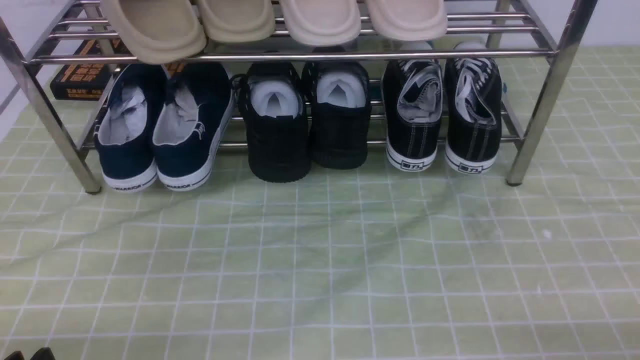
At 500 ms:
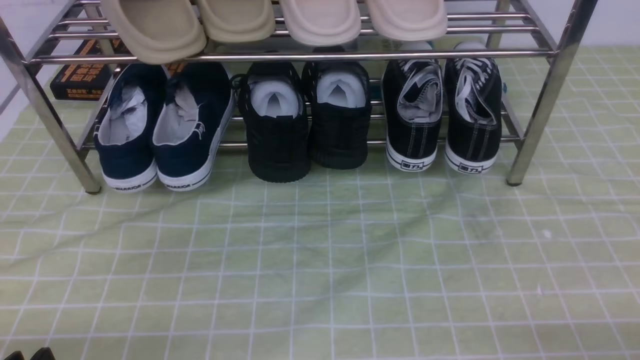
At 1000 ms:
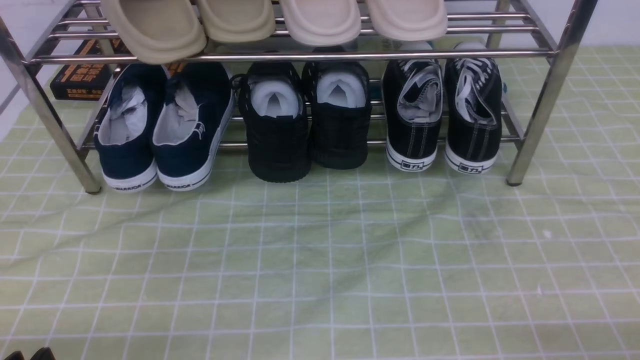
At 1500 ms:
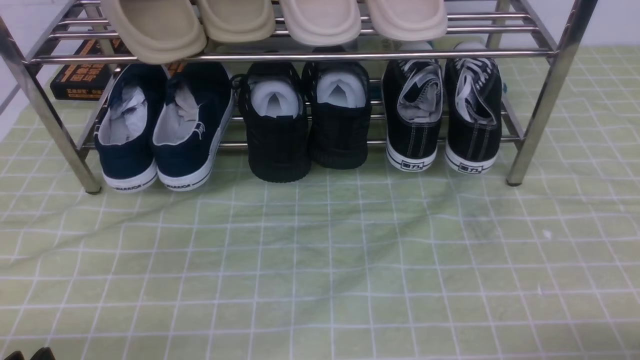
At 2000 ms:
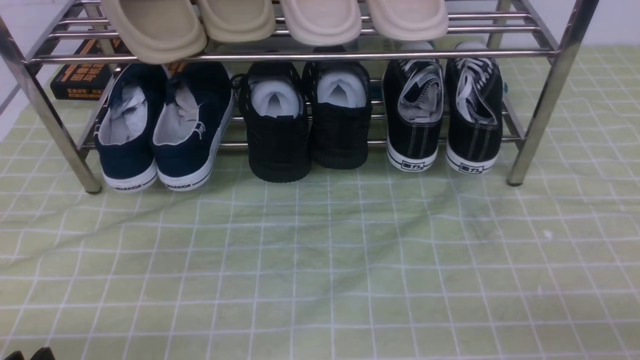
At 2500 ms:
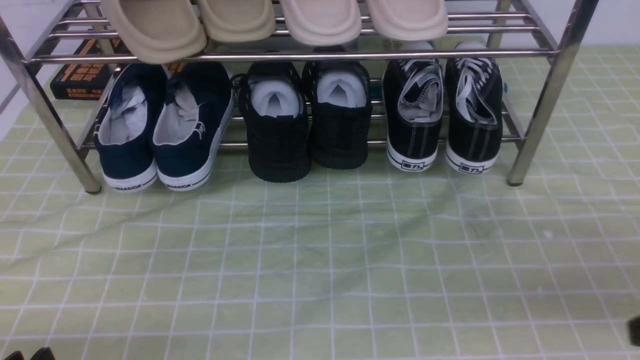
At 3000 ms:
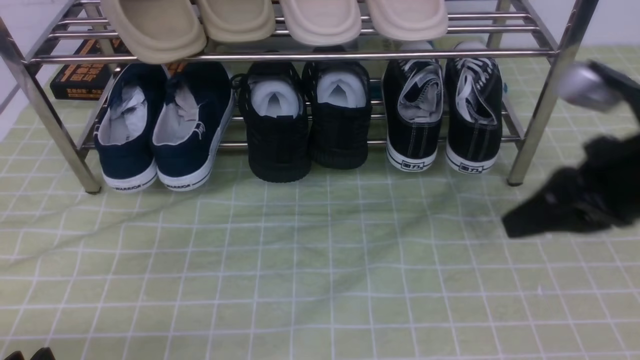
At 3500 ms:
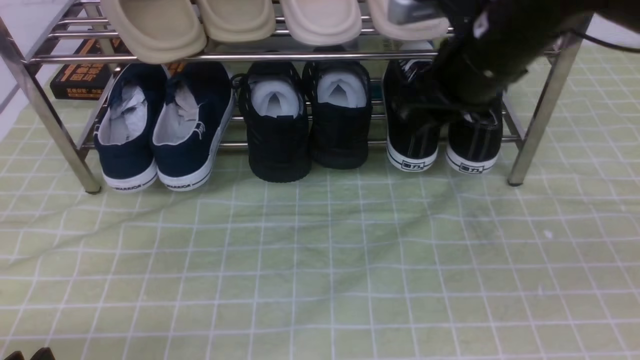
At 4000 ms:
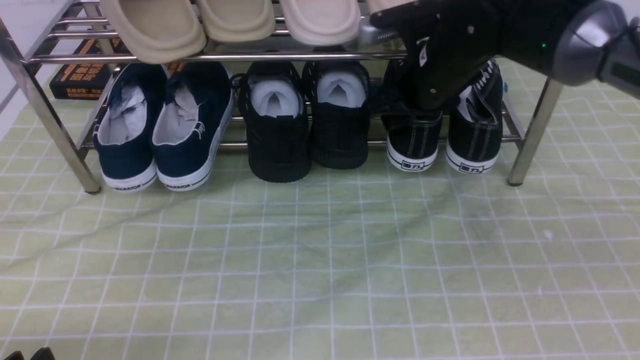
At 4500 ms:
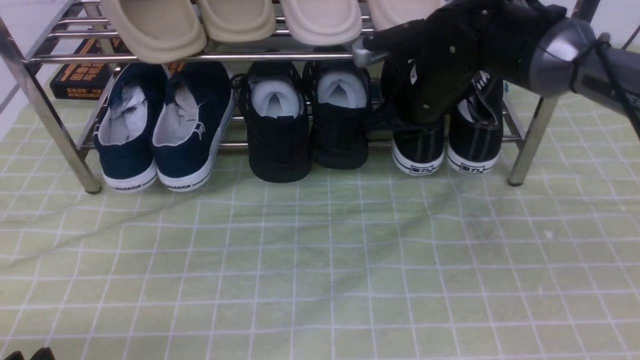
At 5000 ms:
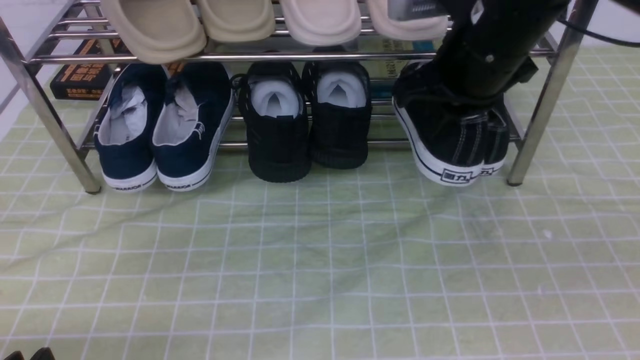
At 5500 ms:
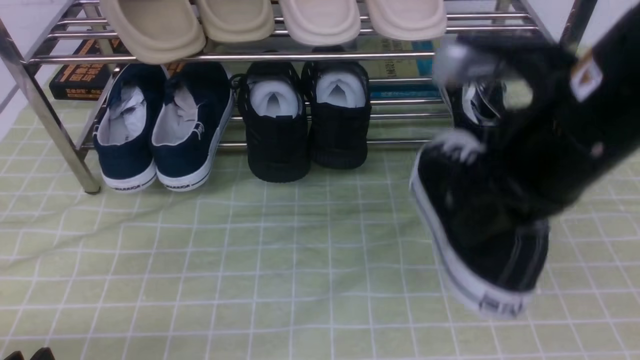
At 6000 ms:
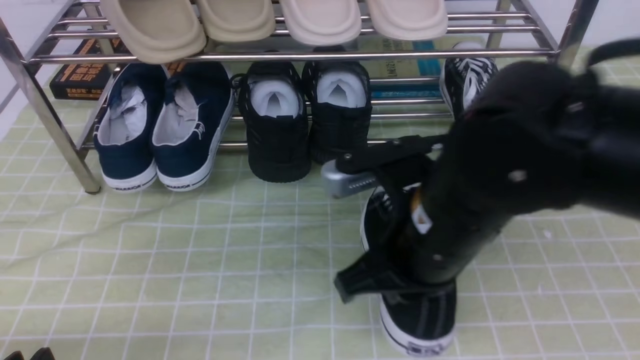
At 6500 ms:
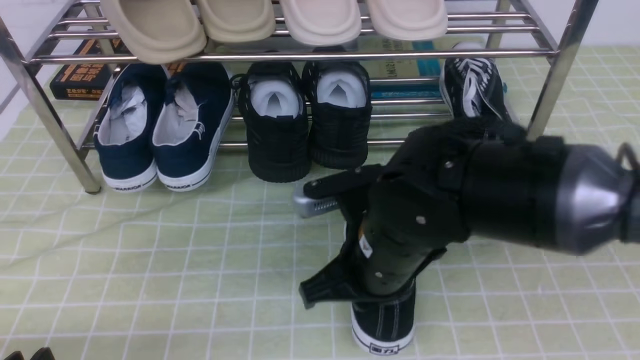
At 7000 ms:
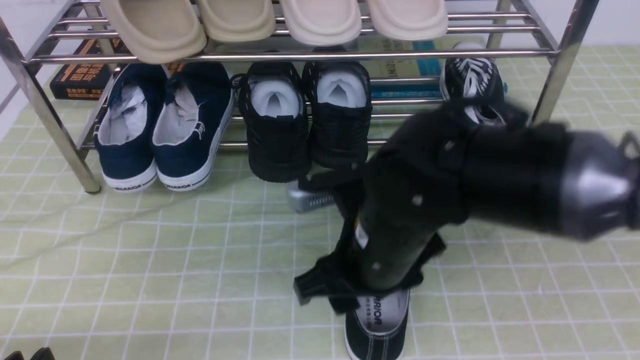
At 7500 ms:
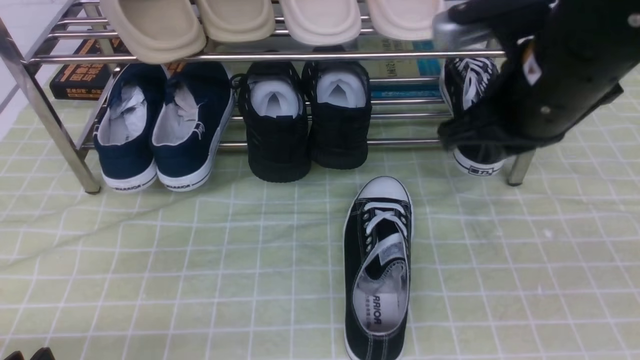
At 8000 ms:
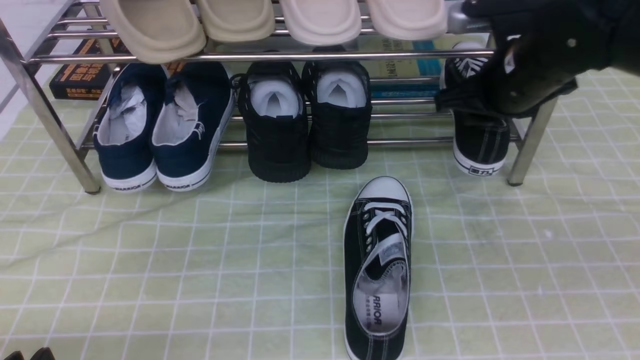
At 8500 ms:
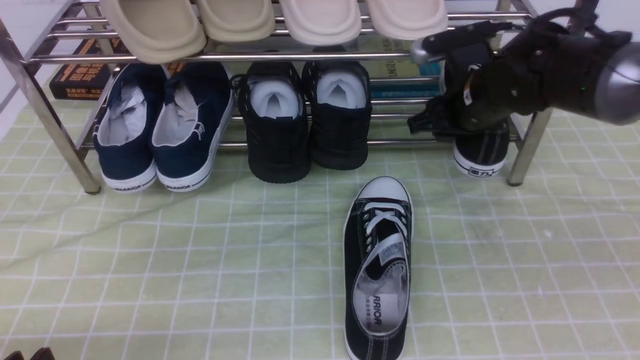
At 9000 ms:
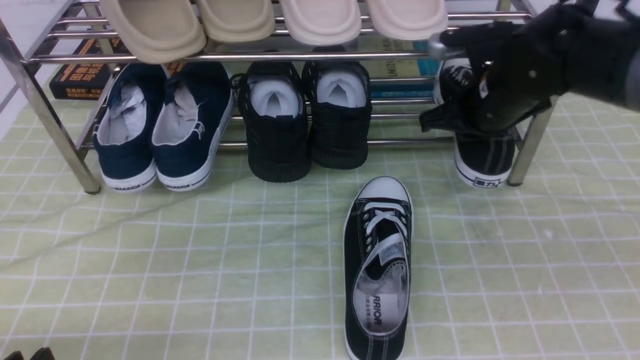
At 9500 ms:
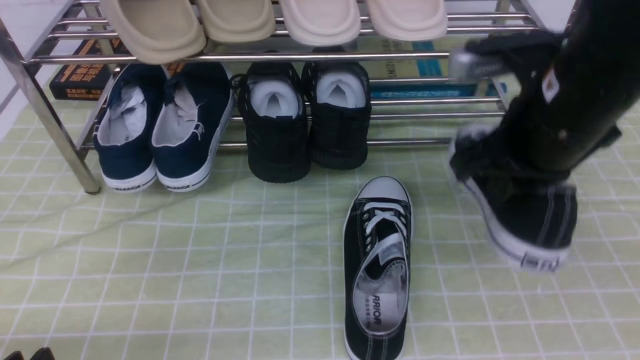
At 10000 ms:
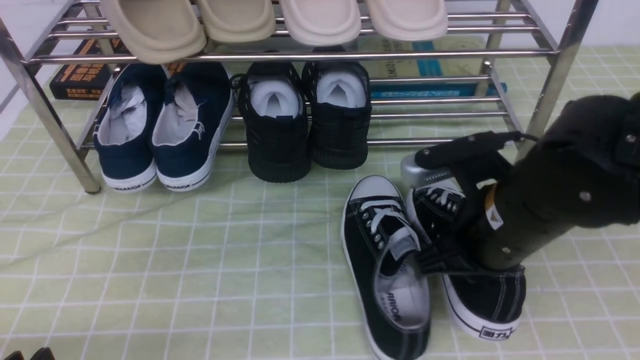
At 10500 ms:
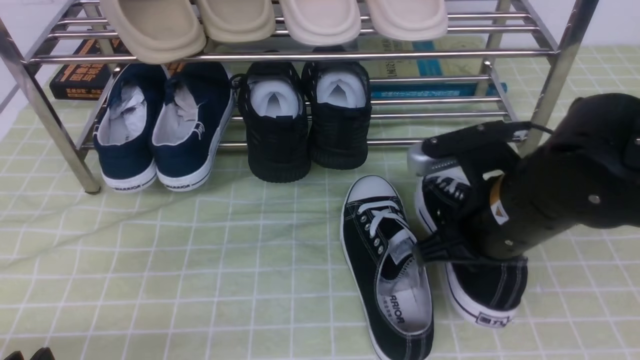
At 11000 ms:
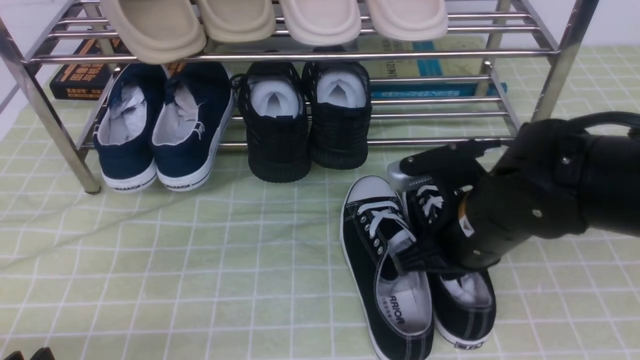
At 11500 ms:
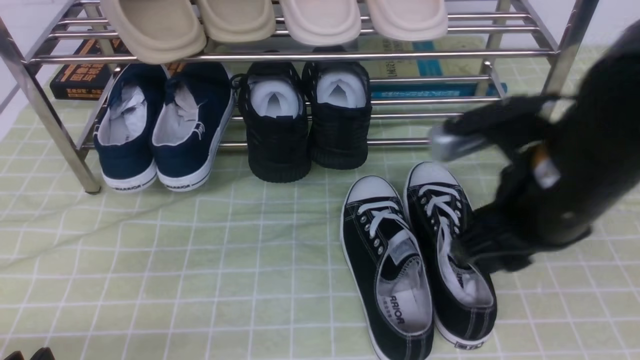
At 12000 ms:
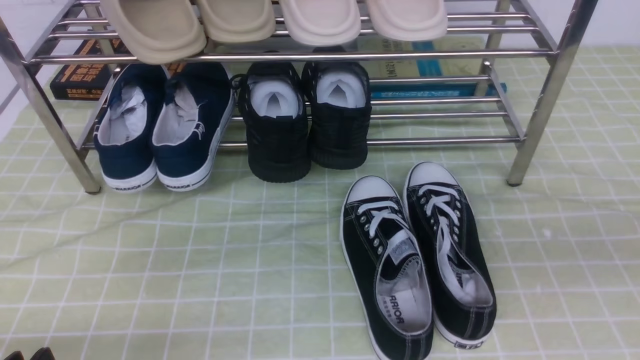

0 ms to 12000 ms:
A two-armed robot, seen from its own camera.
Step, 0 ms to 4500 ms: use the right arm to clamp a shoe on the right side of the shoe rack.
Step, 5000 ms to 7000 ms: use the right arm to take out the clamped shoe from the shoe rack and put it down.
Step, 7500 ms to 8500 ms: use the right arm to clamp a shoe on the right side of the shoe rack.
Step, 9000 ms to 11500 ms: use the right arm to take out the clamped shoe from the shoe rack and put it down.
2000 ms to 4000 ms: The right gripper travels forward and to the left by approximately 40 cm, and opens.
4000 ms to 6000 ms: The right gripper heads backward, covering about 20 cm, and closes.
6000 ms to 8000 ms: The right gripper goes approximately 20 cm forward and to the right, and opens.
8000 ms to 10000 ms: The right gripper shifts approximately 10 cm backward, and closes its fingers.
10000 ms to 12000 ms: The right gripper moves upward, backward and to the right, roughly 20 cm, and opens, then closes again.
